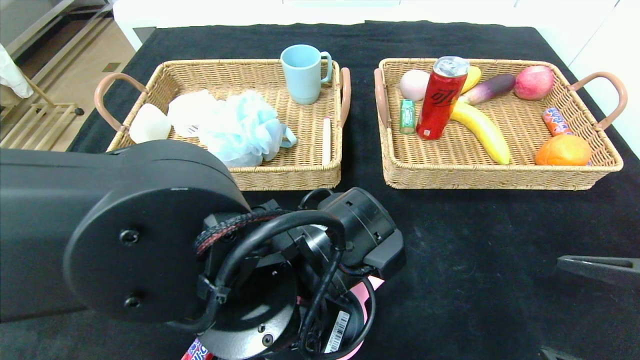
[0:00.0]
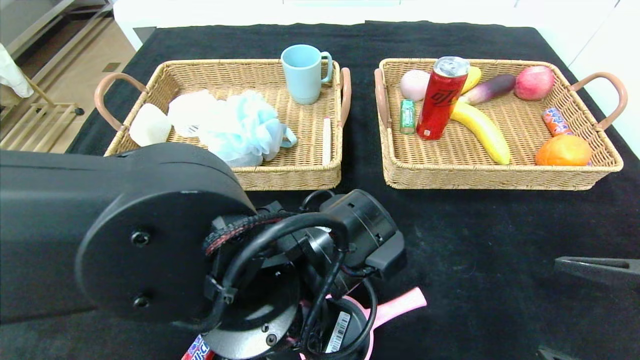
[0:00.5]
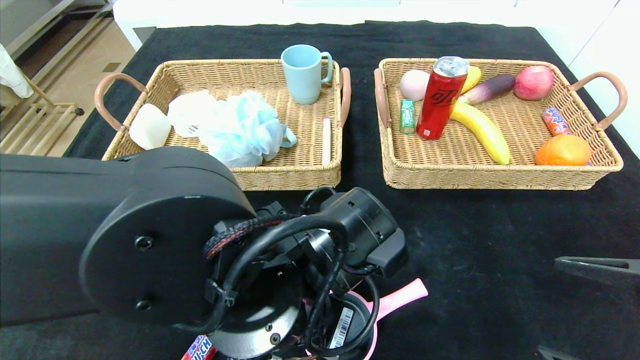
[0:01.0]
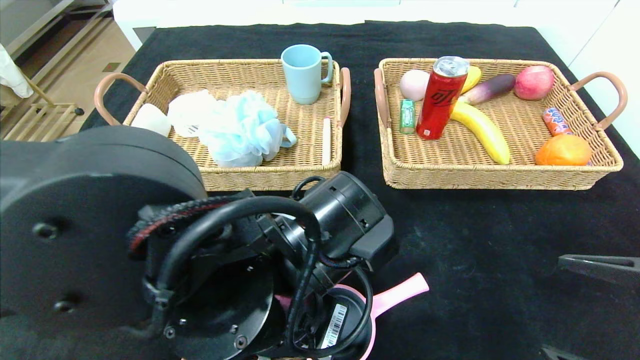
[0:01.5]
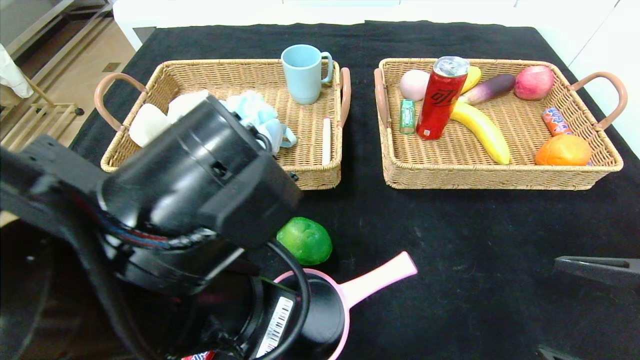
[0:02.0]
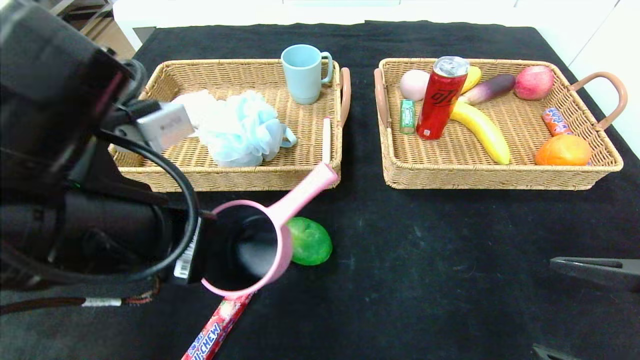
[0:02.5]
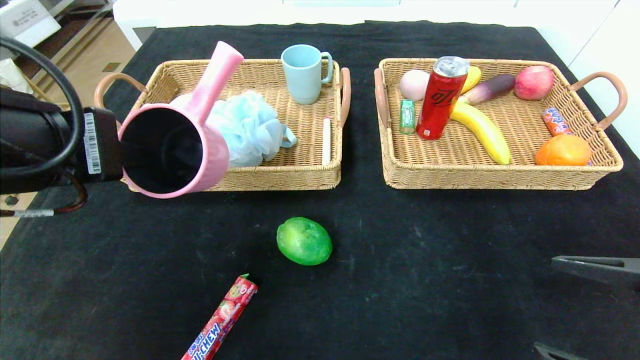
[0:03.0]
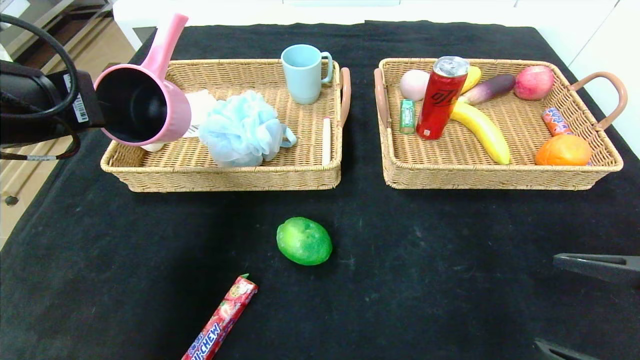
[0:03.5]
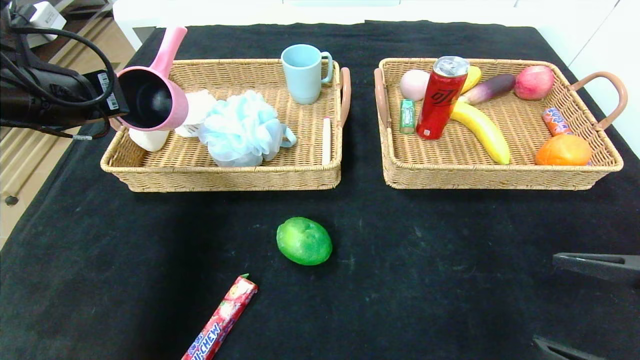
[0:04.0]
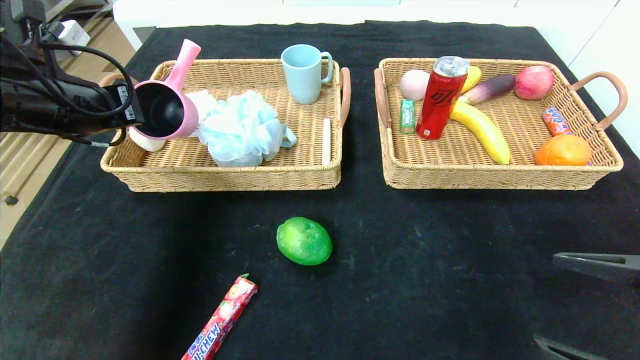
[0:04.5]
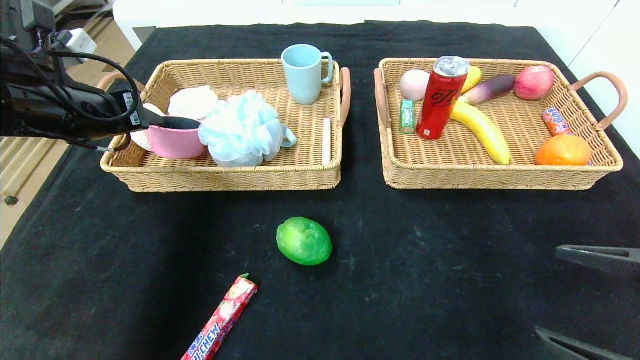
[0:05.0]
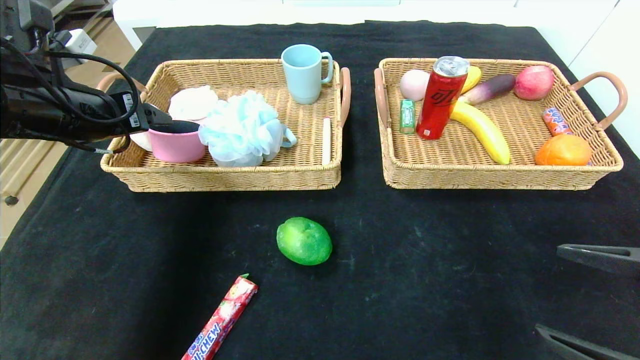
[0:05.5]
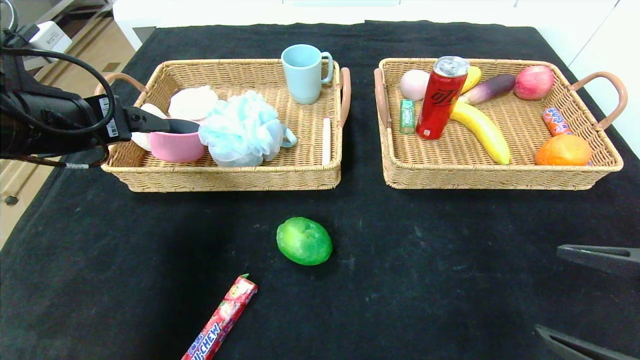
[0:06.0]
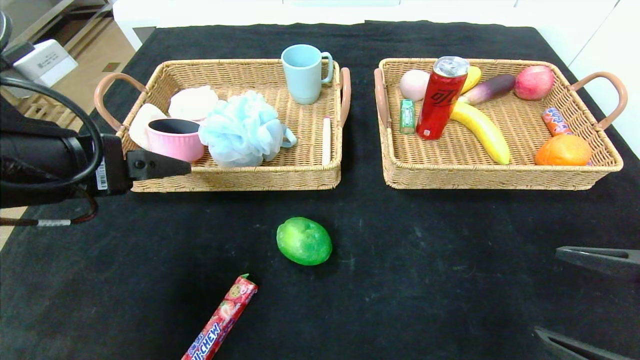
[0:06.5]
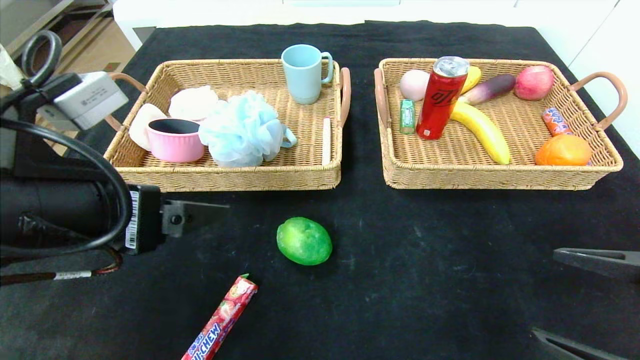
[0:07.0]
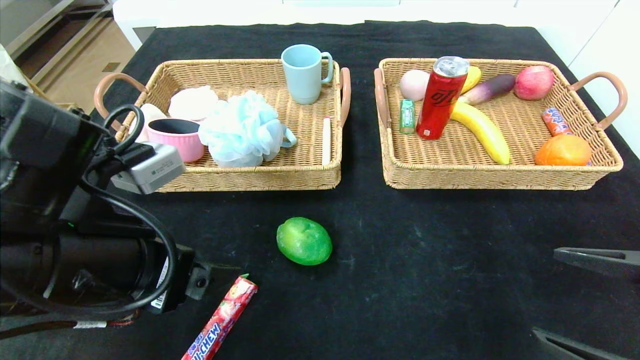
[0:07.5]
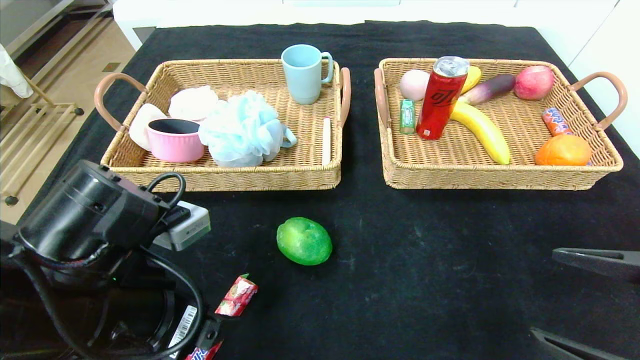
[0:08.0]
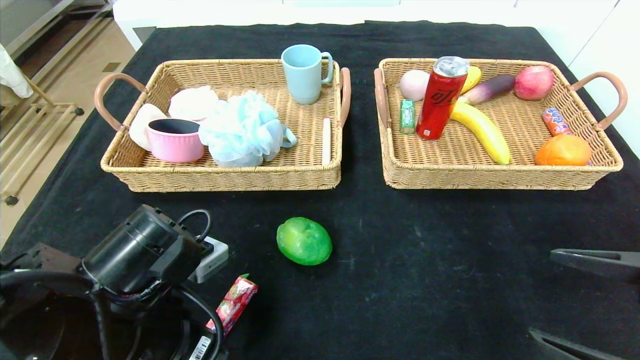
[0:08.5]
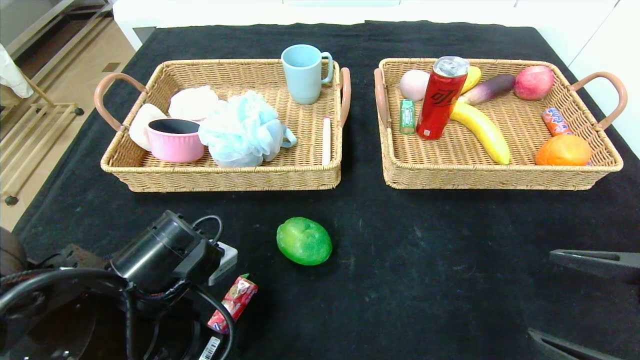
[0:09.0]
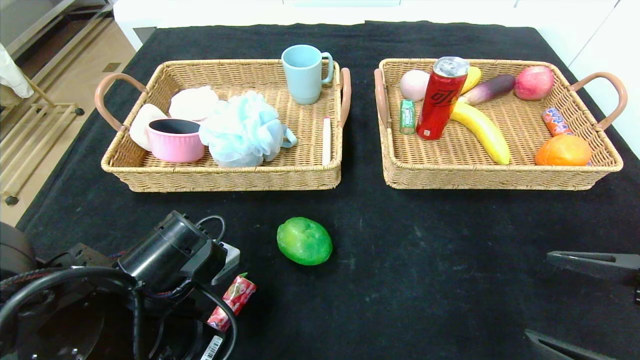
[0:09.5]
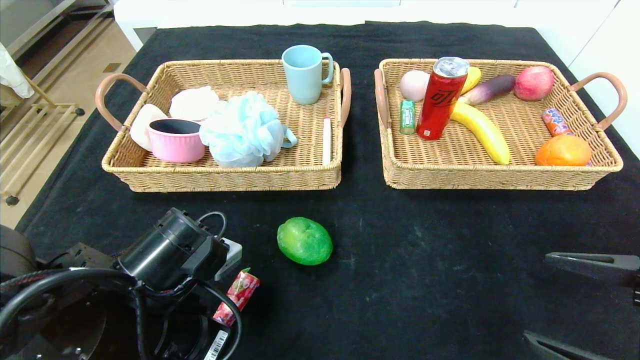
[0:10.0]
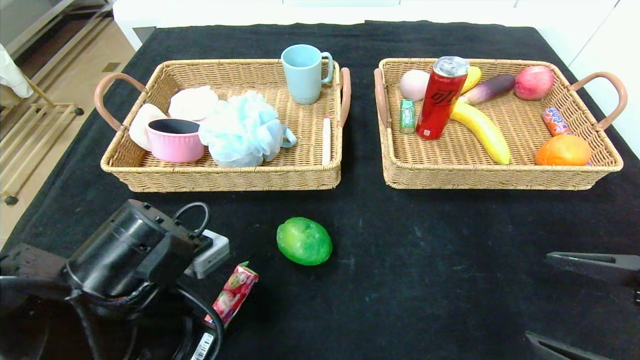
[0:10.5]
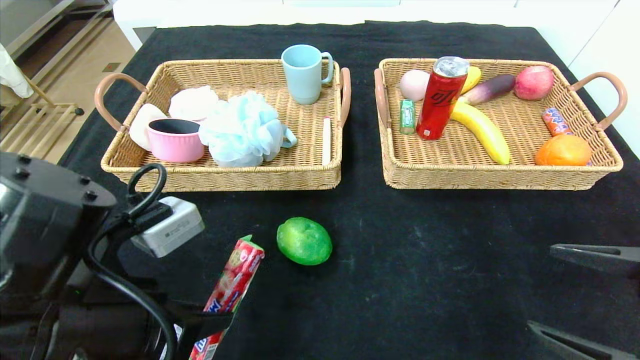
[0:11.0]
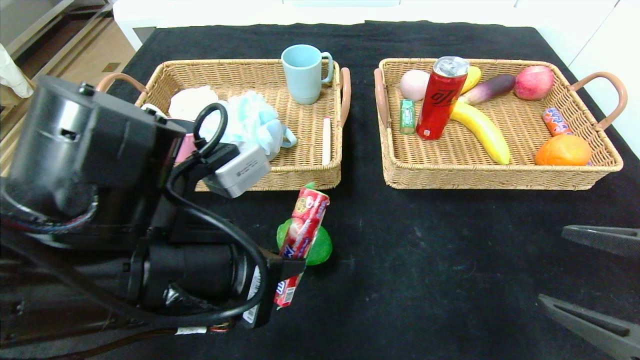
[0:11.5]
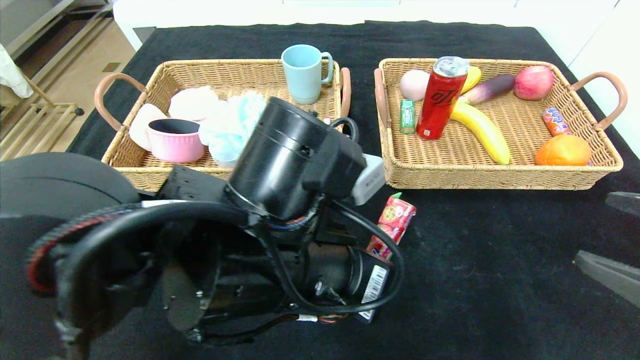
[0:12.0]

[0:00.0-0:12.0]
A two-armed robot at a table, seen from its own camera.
Step, 0:00.0 to 0:05.0: Grasp the pink pot and put it in the left basket.
0:00.0 to 0:02.0: The left gripper travels upward and to the left by about 10 cm, and closes its fingers.
0:02.0 to 0:04.0: The left gripper shifts about 25 cm to the left and forward.
0:04.0 to 0:06.0: The left gripper opens its fingers.
0:06.0 to 0:08.0: The left gripper is displaced downward, to the right and backward by some 20 cm.
0:08.0 to 0:10.0: The left gripper closes.
0:10.0 to 0:12.0: The right gripper goes some 5 cm upward, while the left gripper shifts some 15 cm to the right and upward.

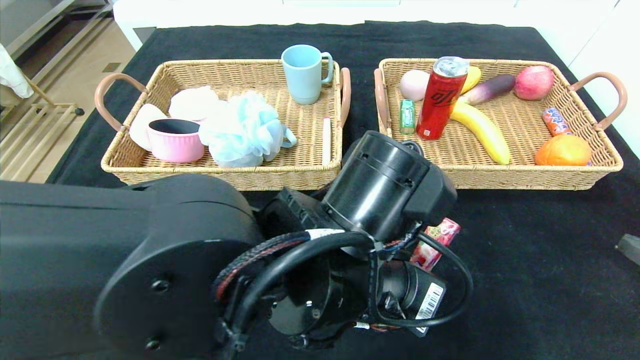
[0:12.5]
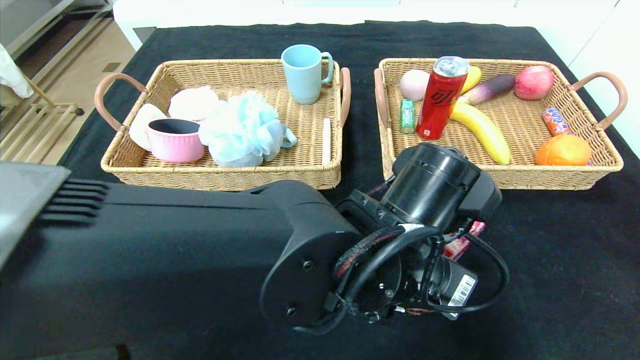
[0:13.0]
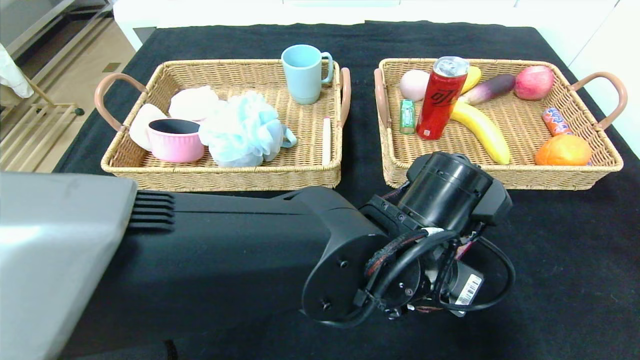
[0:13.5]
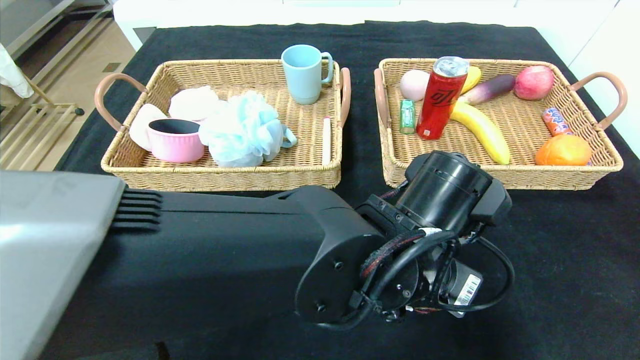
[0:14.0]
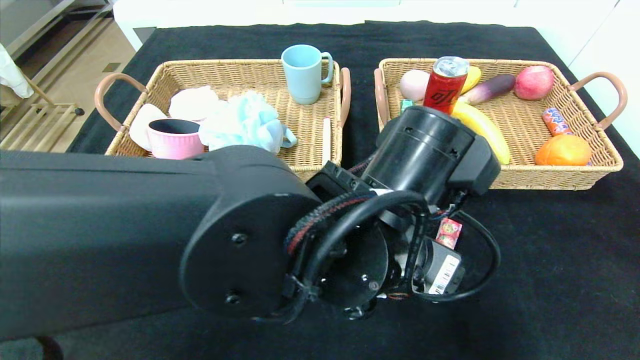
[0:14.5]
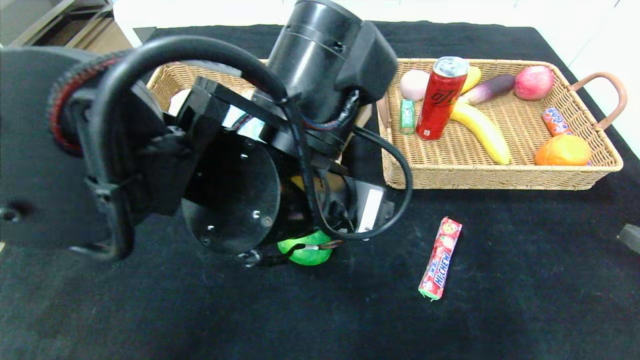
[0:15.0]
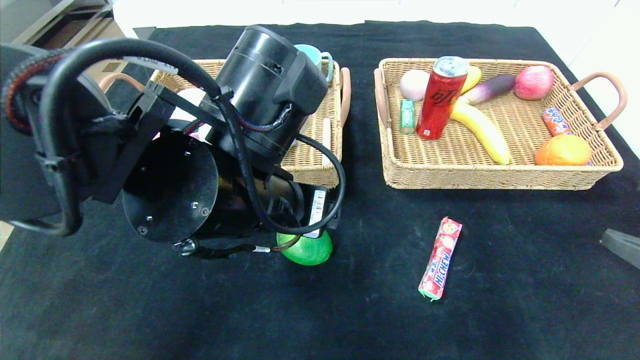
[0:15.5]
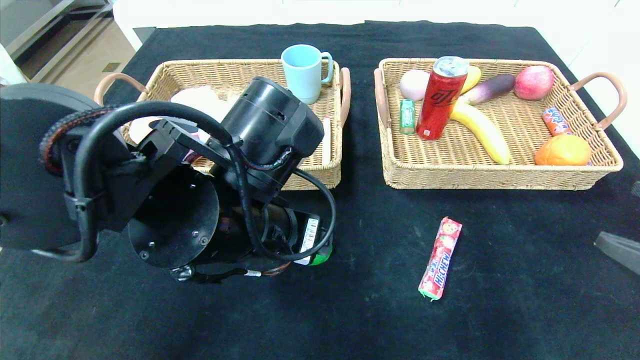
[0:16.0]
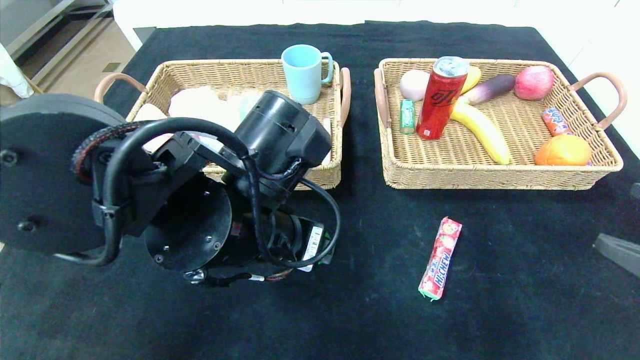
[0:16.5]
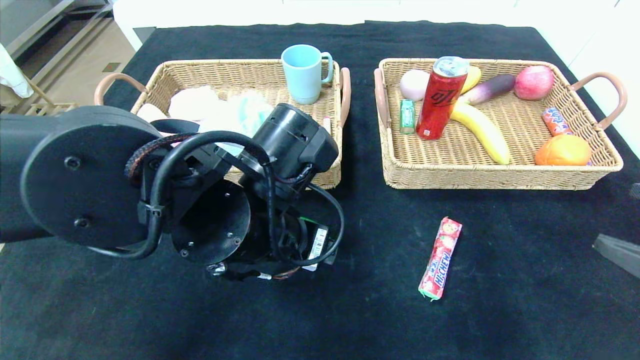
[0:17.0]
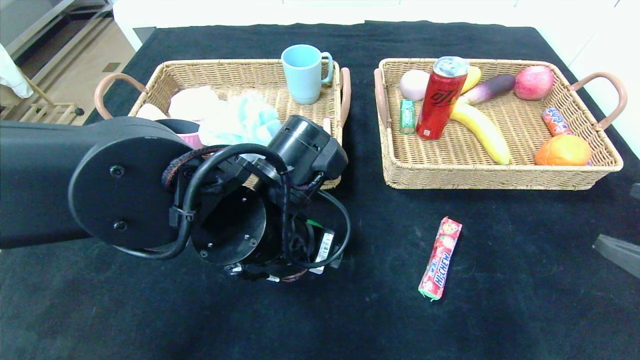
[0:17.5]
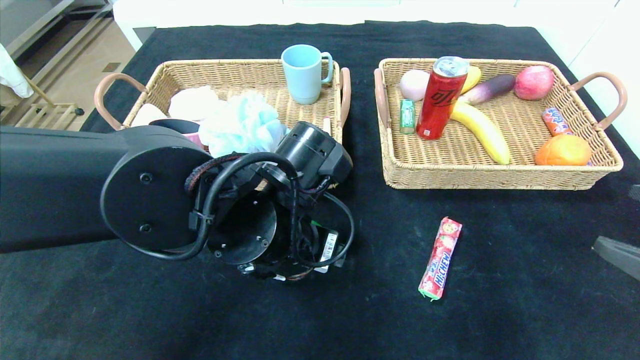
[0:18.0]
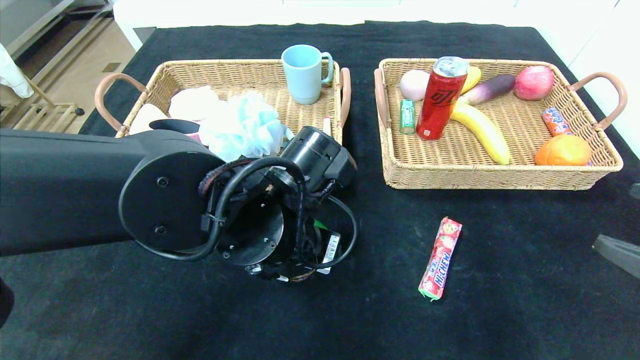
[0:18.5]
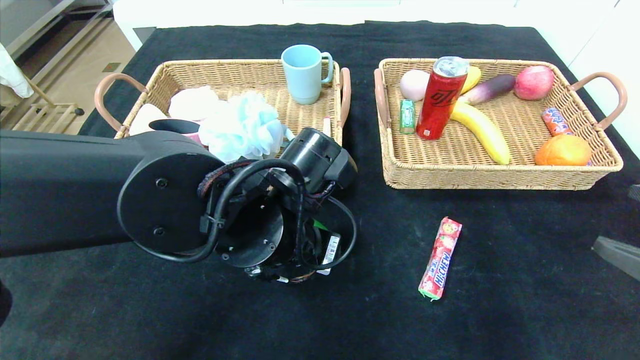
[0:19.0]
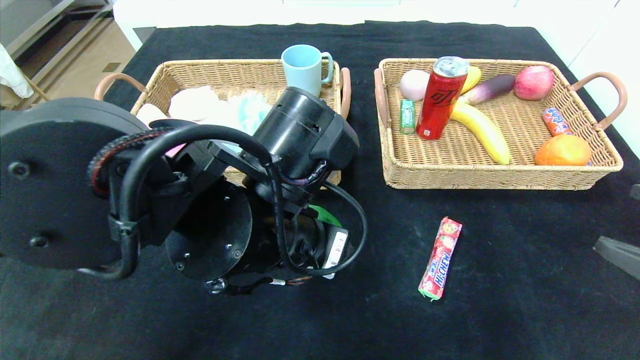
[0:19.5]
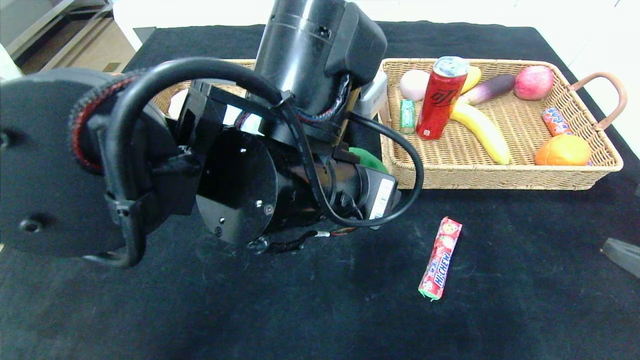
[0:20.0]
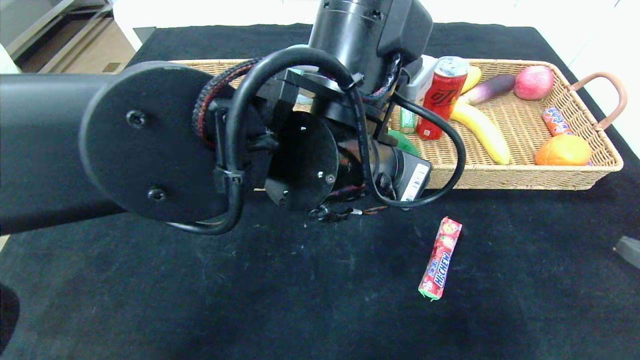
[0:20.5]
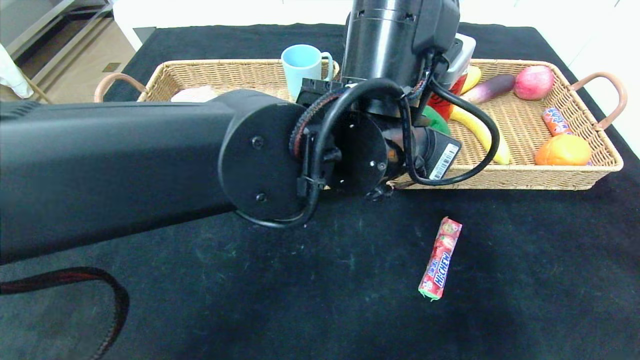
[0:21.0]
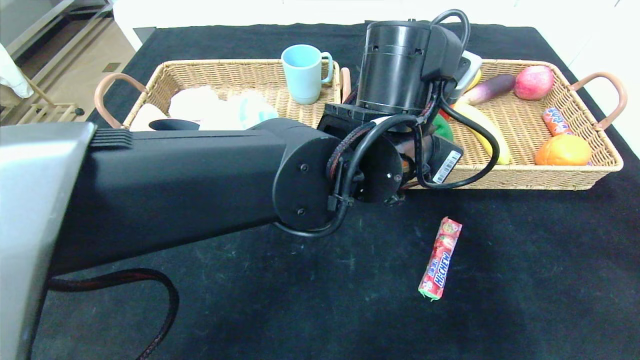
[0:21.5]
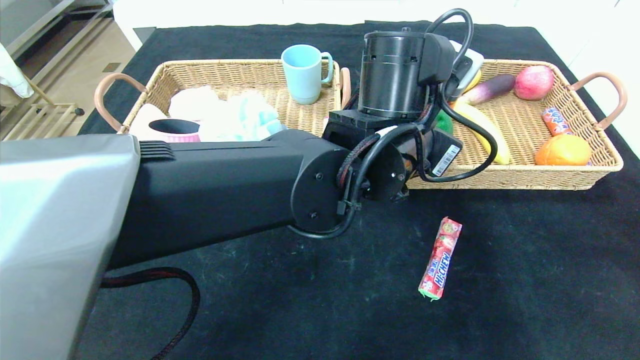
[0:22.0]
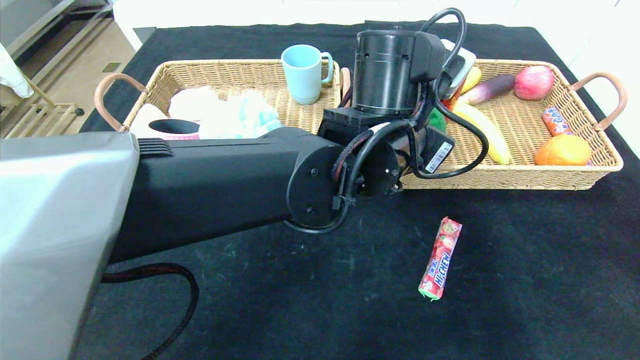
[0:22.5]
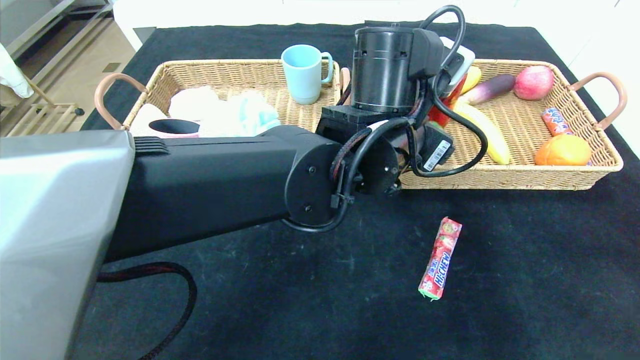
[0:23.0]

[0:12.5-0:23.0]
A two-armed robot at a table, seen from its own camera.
0:12.5 to 0:14.5: The left gripper opens its fingers.
0:14.5 to 0:16.5: The left gripper moves to the left, approximately 10 cm.
0:16.5 to 0:19.0: There are only small adjustments of the grippers.
0:19.0 to 0:21.0: The left gripper heads to the right and upward, covering some 15 cm.
